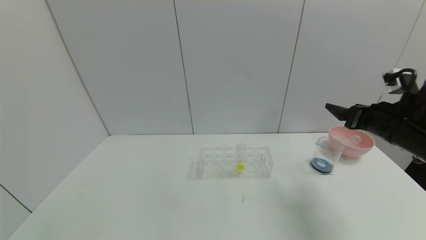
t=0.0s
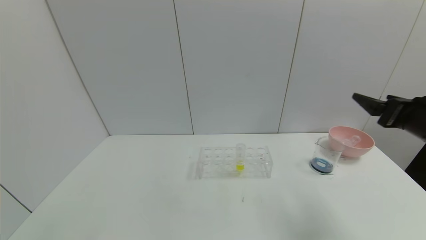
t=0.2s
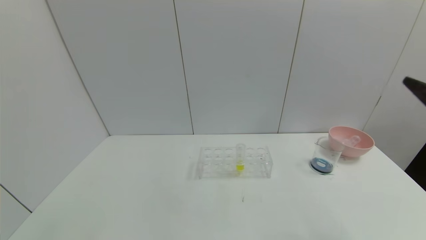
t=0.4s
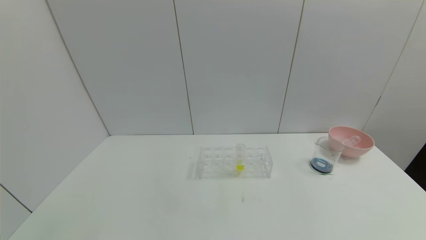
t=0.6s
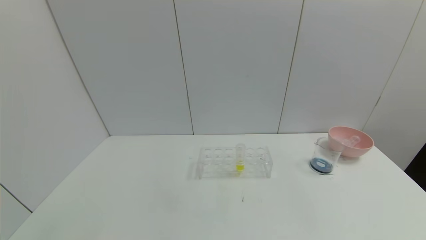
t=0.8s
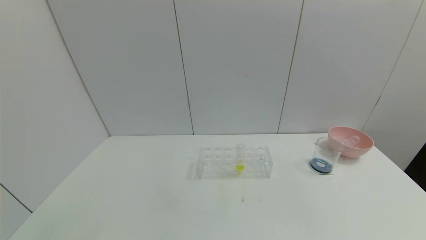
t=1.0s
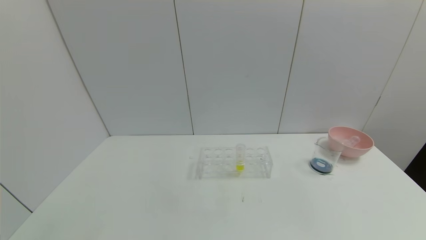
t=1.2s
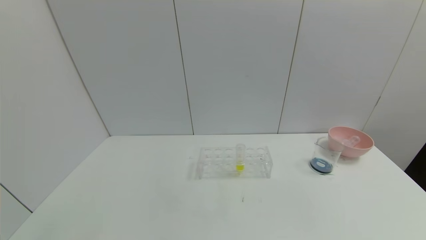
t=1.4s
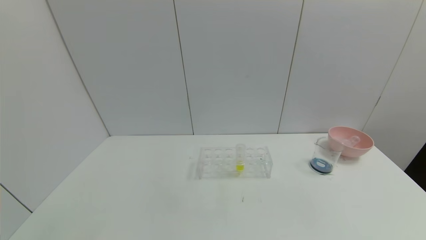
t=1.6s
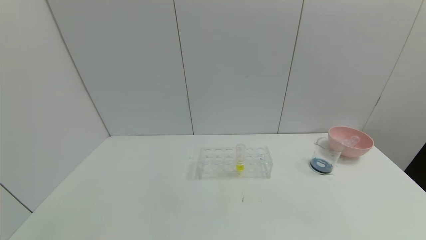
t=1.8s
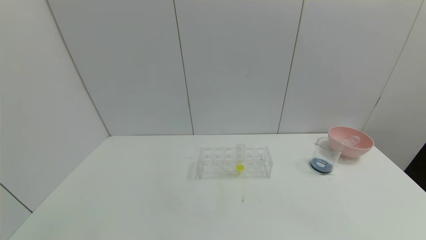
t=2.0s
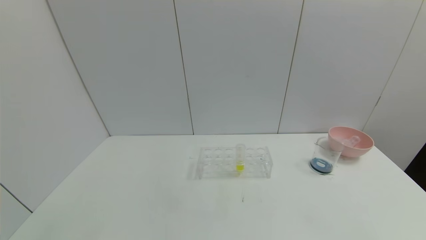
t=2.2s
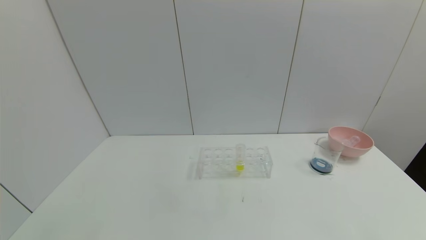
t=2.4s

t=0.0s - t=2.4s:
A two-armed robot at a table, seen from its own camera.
Task of the whole recording: pick up the test tube with red pigment and the test tube with blue pigment by grippers and pour them into the container.
t=0.0s - t=1.2s: The right gripper goes approximately 35 cm backward.
